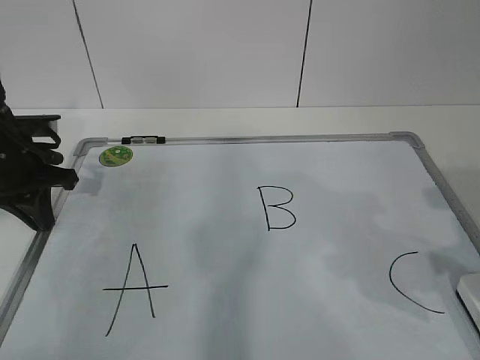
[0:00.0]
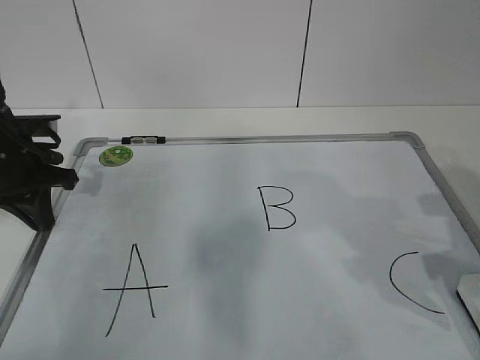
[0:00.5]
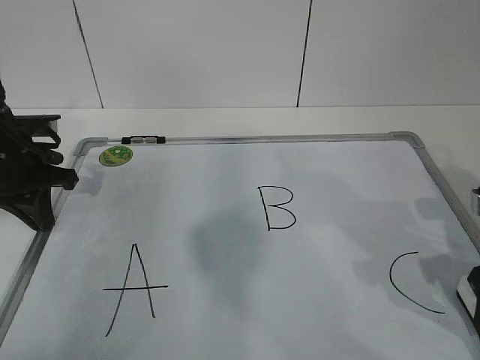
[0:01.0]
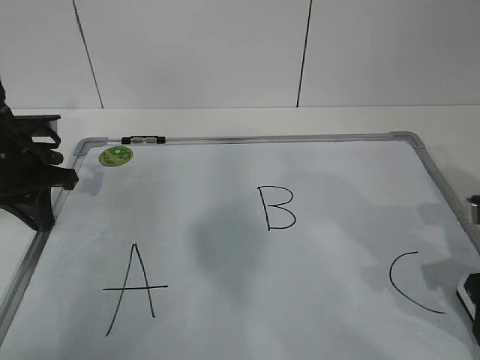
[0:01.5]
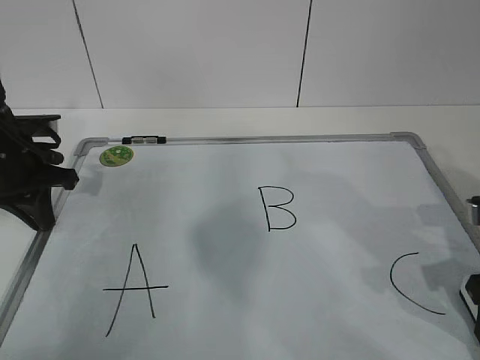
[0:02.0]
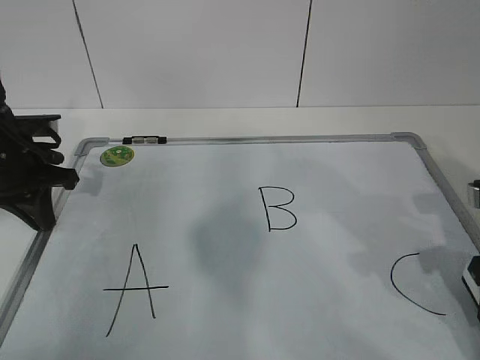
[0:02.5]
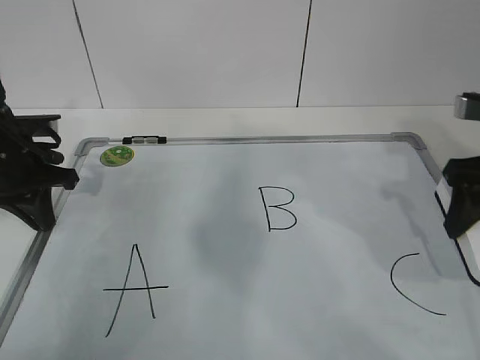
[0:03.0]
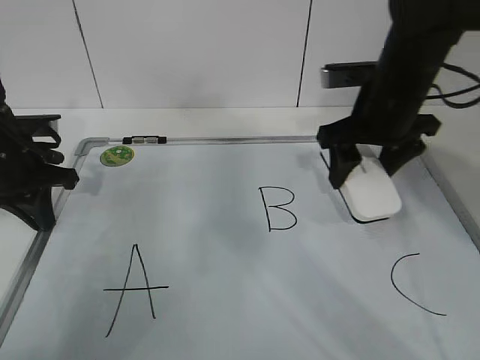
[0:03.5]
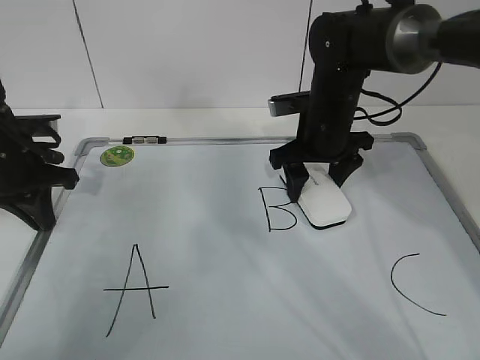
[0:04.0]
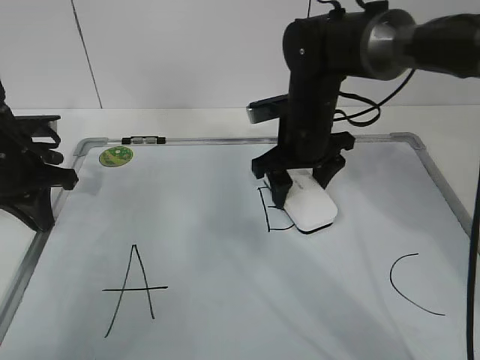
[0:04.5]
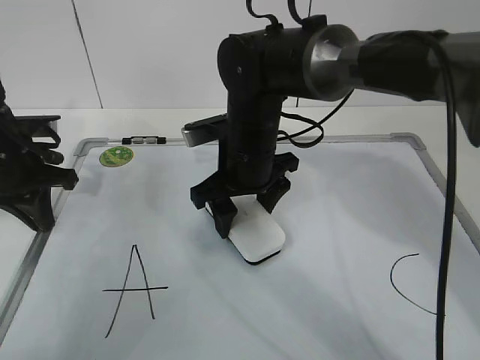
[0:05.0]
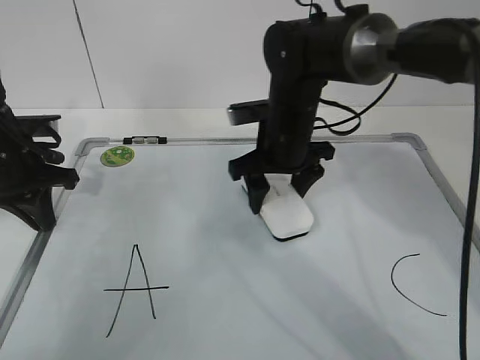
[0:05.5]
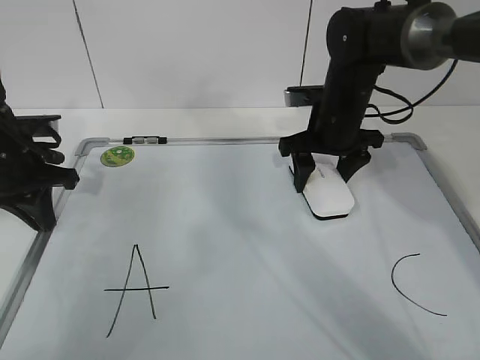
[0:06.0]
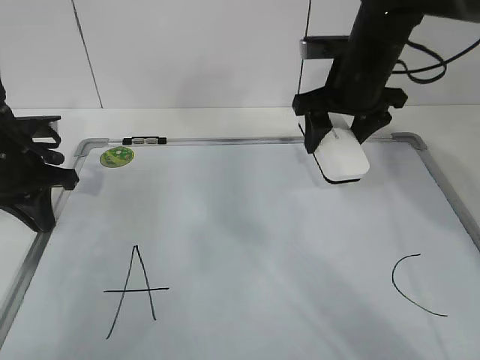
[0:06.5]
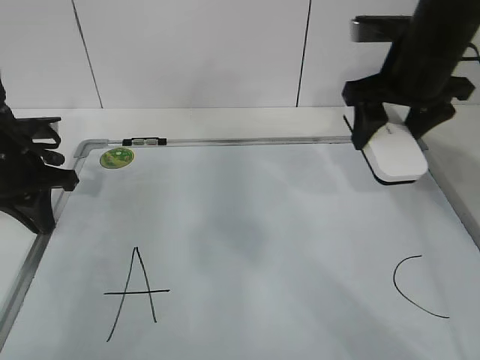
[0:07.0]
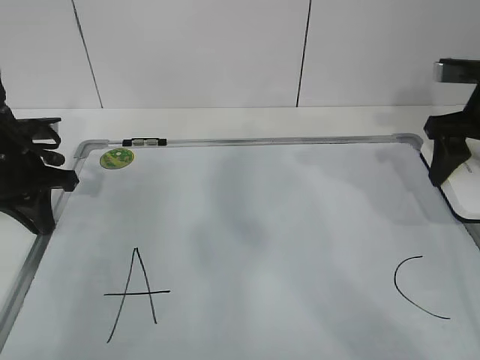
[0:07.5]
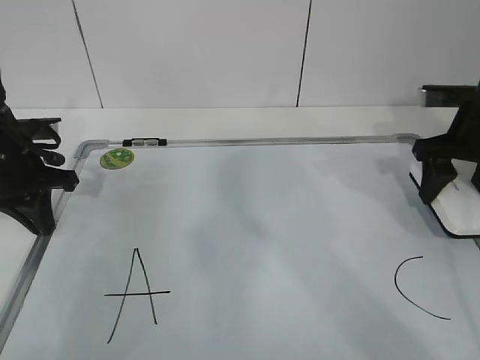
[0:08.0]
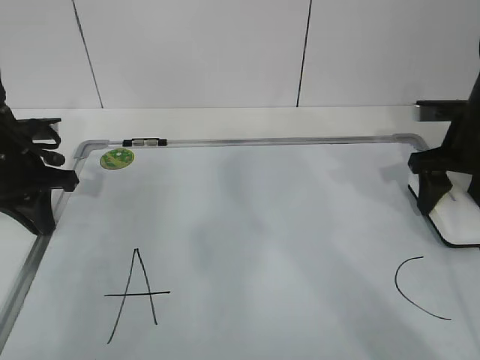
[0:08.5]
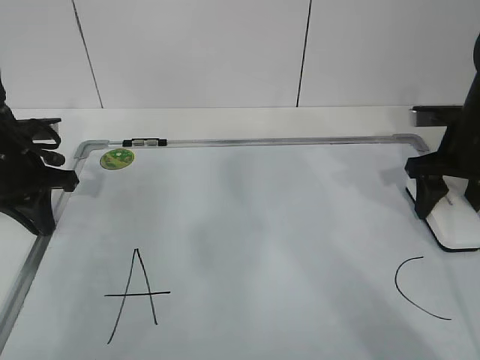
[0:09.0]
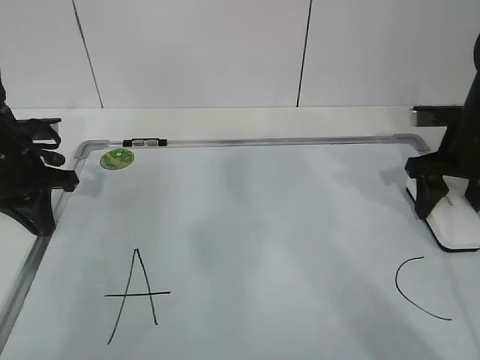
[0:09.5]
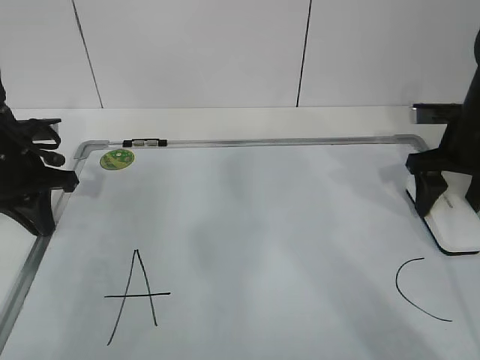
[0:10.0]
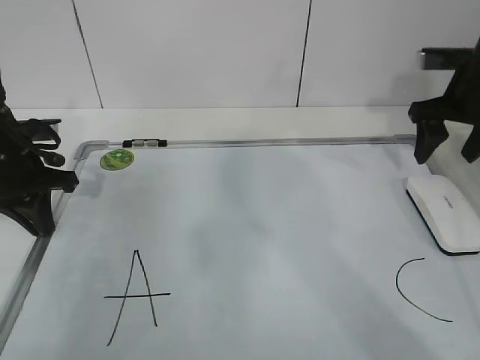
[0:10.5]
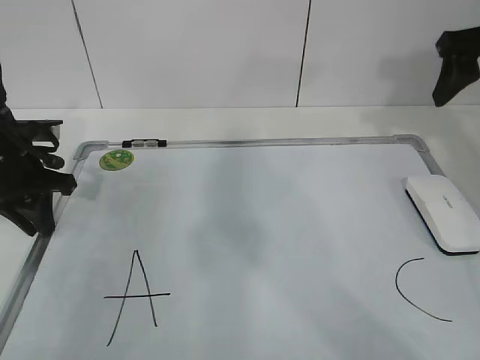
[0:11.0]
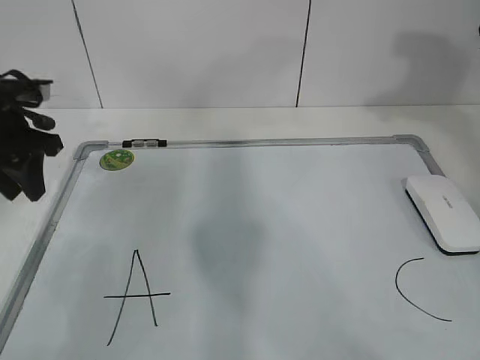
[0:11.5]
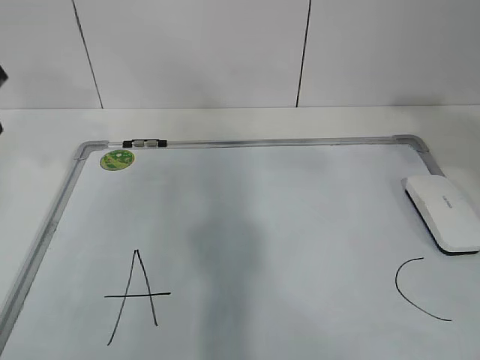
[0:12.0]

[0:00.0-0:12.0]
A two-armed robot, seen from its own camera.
Task of the whole recording: pick up the eraser on the blackboard and erase the letter "B".
Step, 0:01.0 to 0:03.5: Erase the letter B with your right hand.
Step, 0:04.0 to 0:06.5: Put down the eraser with your right hand.
0:00.0 to 0:02.0: The right gripper shifts about 5 cm downward.
0:02.0 to 0:04.0: The right gripper goes roughly 25 cm forward and to the left.
0:04.0 to 0:06.0: The right gripper goes to the left and returns, some 10 cm each way.
0:06.0 to 0:08.0: The right gripper is displaced to the right by roughly 15 cm.
0:08.0 to 0:10.0: There are only small adjustments of the grippers.
0:10.0 to 0:12.0: The left gripper is displaced upward by approximately 15 cm, and opens. The right gripper is displaced upward and backward by roughly 30 cm.

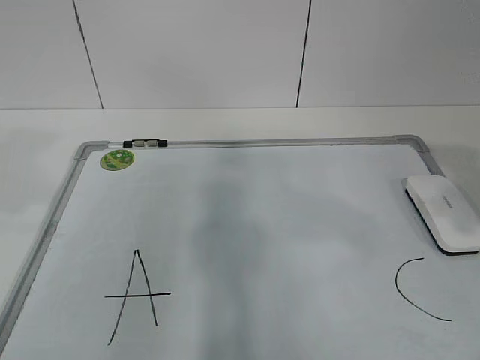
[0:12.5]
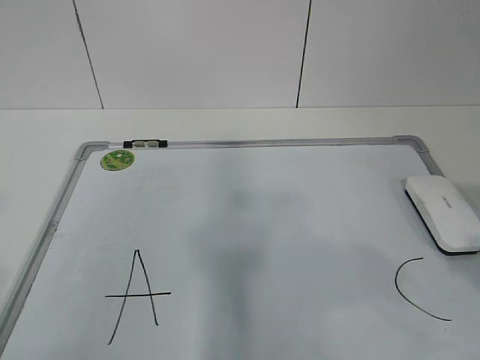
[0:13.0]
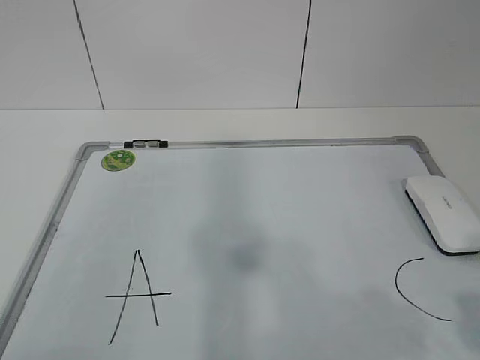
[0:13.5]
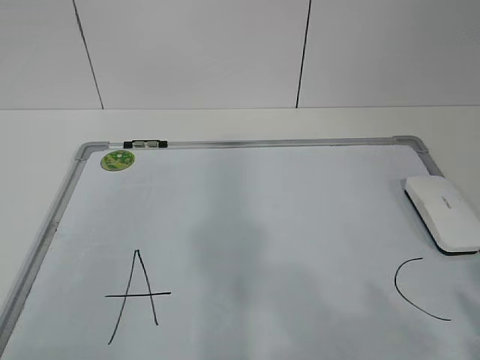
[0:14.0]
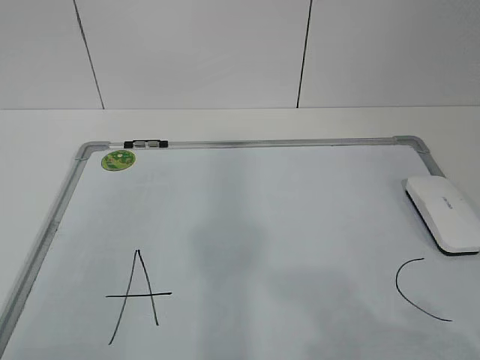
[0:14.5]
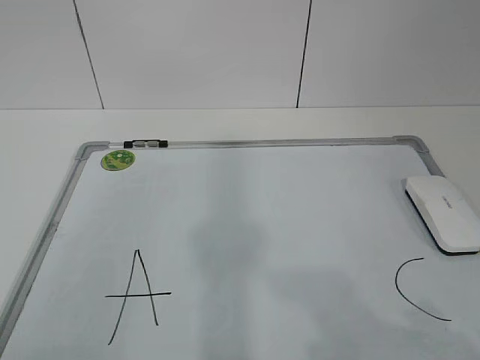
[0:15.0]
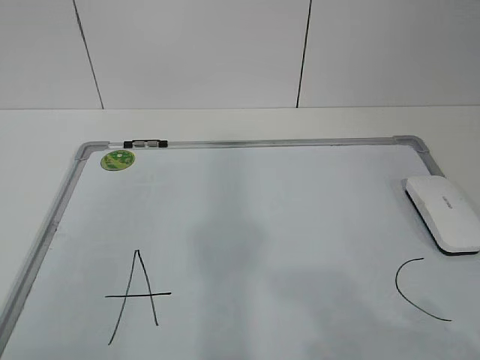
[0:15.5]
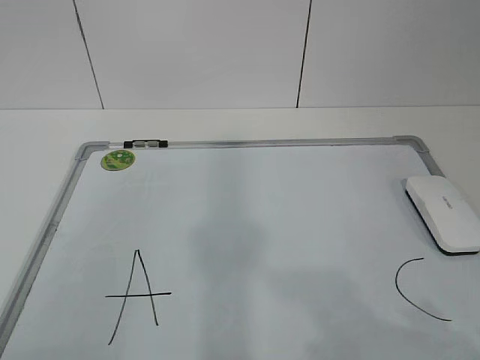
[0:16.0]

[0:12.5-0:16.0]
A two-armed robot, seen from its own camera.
Task of the whole recording: pick up the eraser on the blackboard and erase the letter "B".
0:12.5 to 0:14.5: Both grippers travel together backward and downward, roughly 20 cm.
0:14.5 to 0:16.0: Neither gripper changes place.

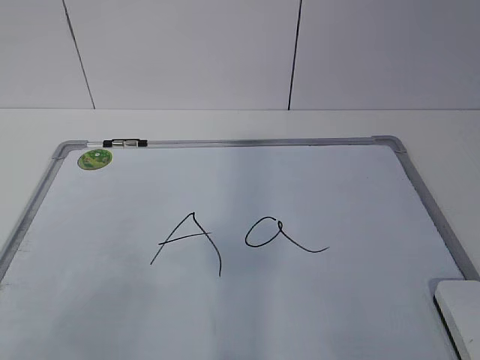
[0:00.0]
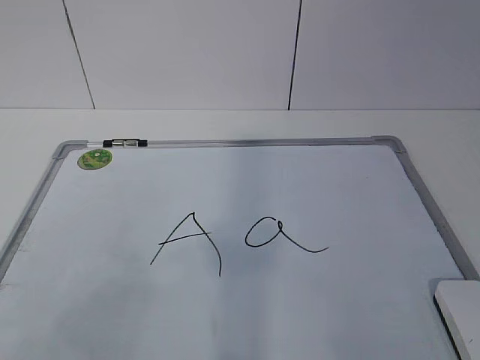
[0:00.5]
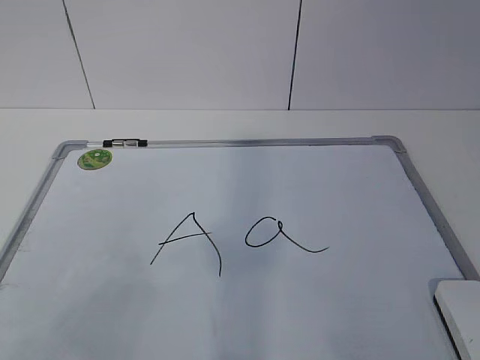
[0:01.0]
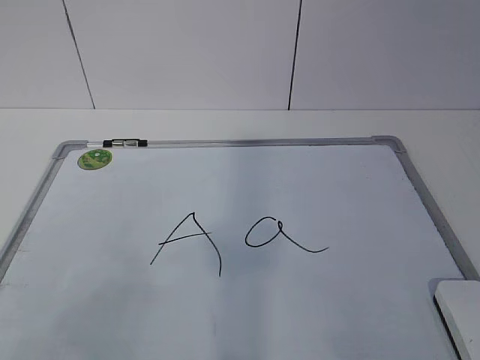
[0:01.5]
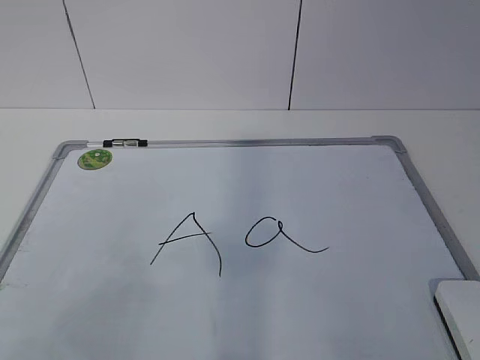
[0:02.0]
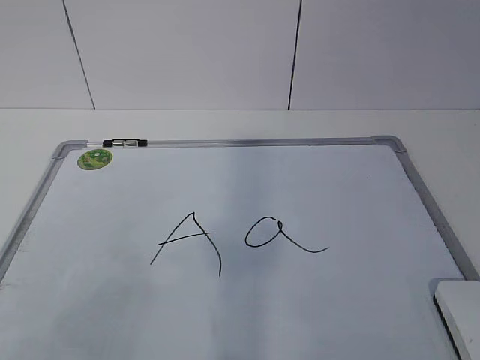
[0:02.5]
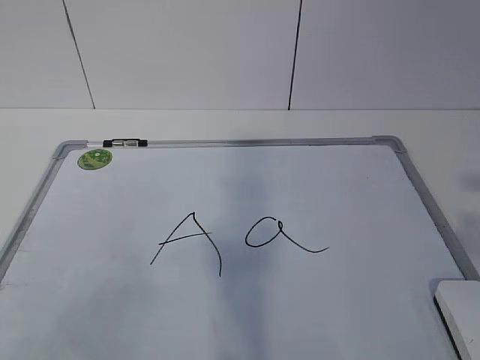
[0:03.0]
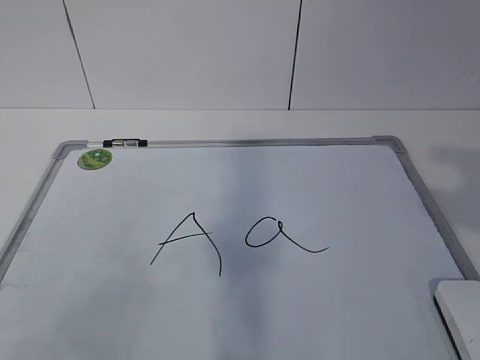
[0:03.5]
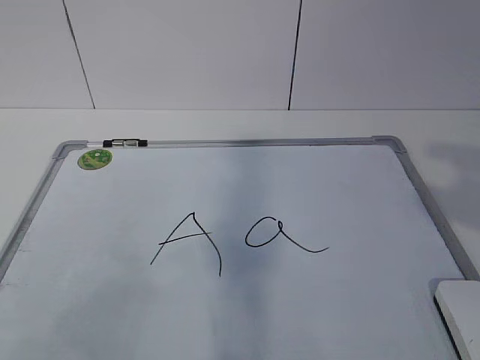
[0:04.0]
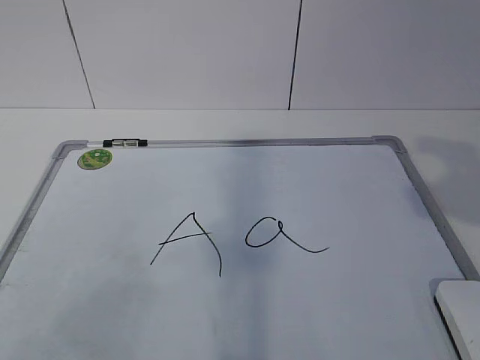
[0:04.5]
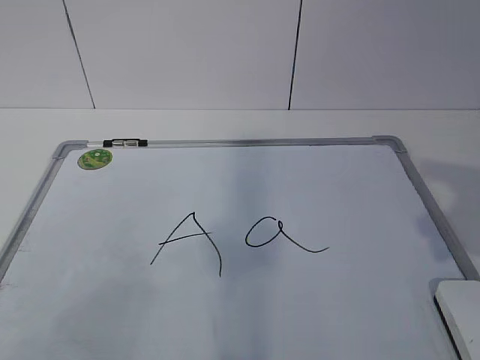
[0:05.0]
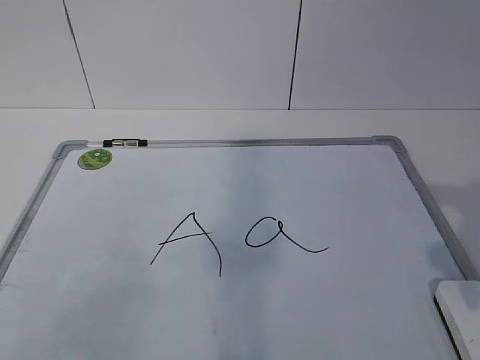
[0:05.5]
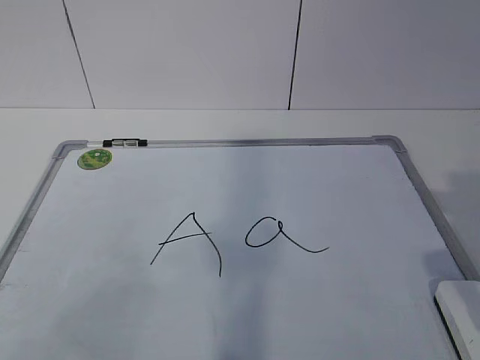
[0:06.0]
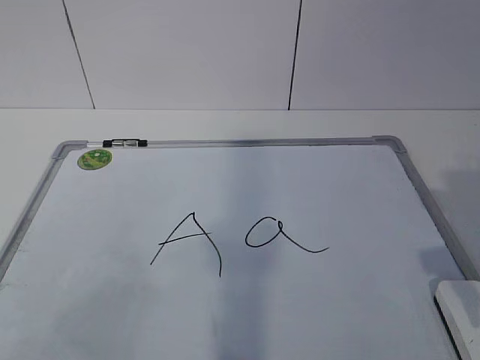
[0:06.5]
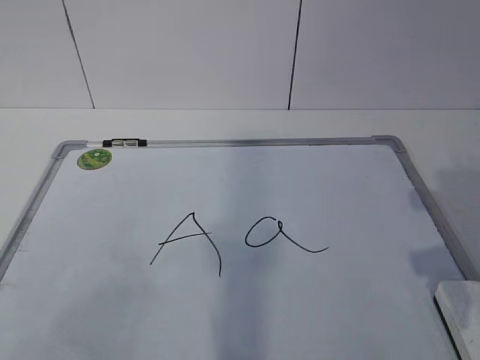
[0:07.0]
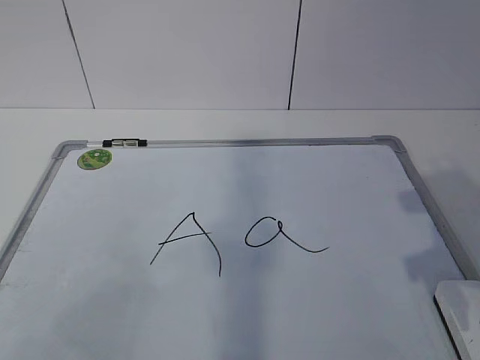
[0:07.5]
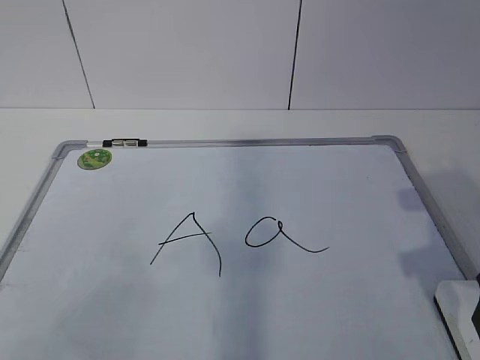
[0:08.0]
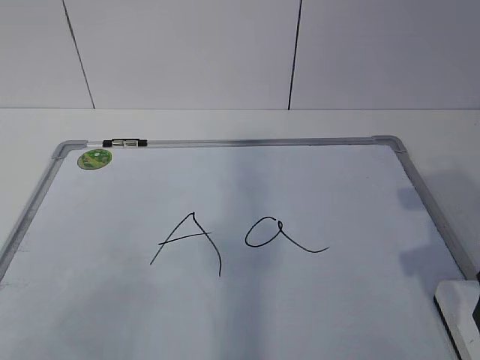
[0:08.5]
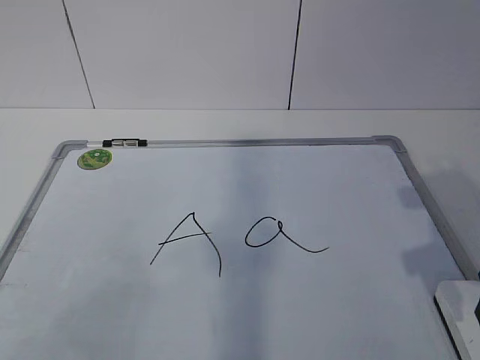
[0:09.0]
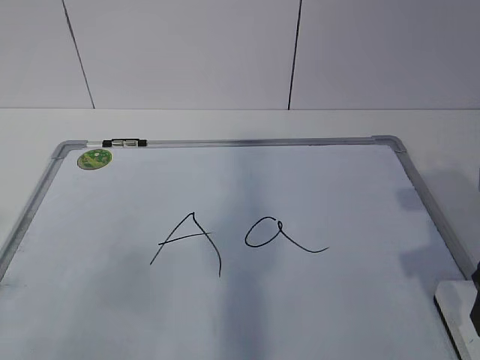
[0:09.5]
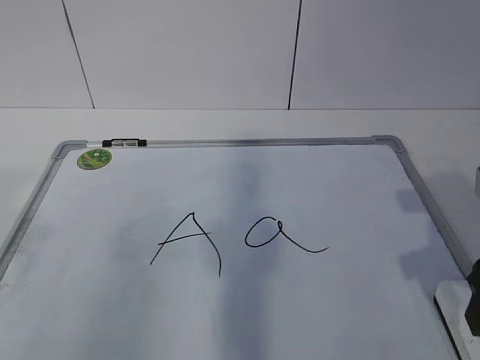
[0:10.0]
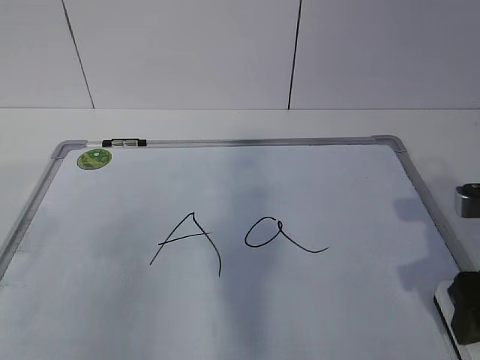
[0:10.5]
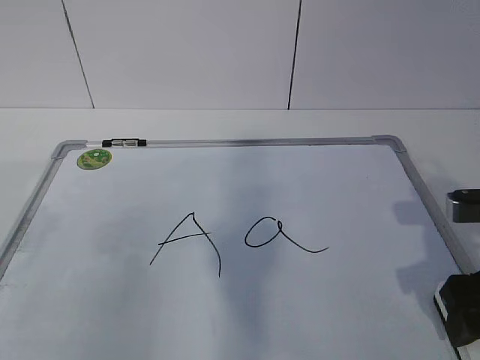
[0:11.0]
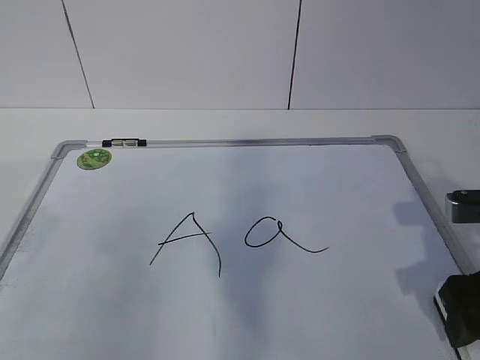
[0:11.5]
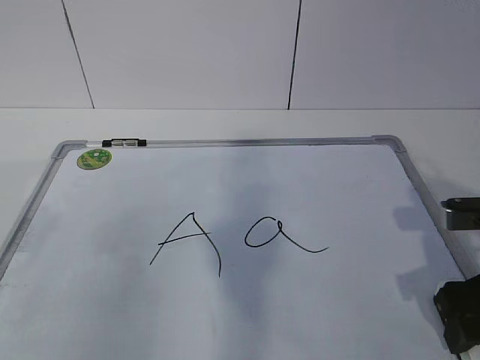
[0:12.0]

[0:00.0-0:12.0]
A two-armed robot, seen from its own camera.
Task of the whole recording: pick up the eraser on the blackboard and erase the letter "a".
0:04.0 to 0:06.0: The right gripper shifts approximately 15 cm downward and forward.
0:10.0 to 0:12.0: The right gripper shifts roughly 5 cm downward.
